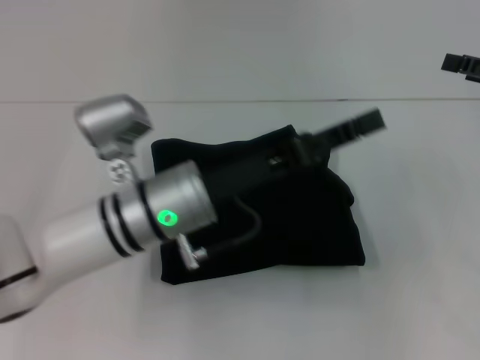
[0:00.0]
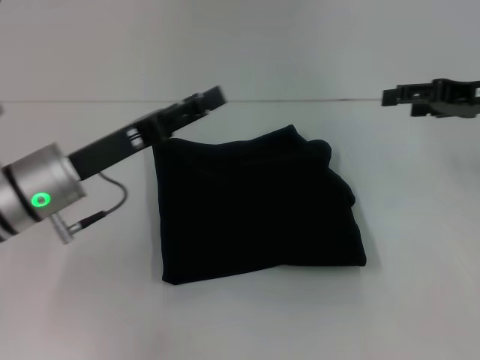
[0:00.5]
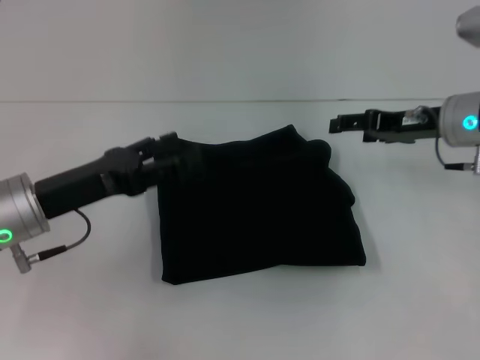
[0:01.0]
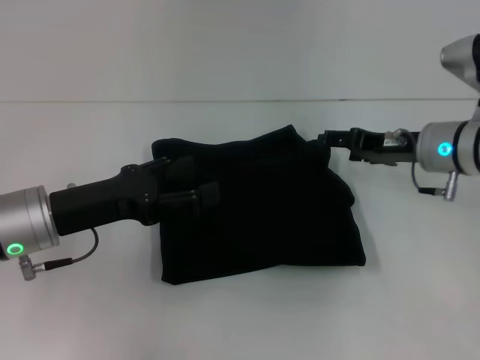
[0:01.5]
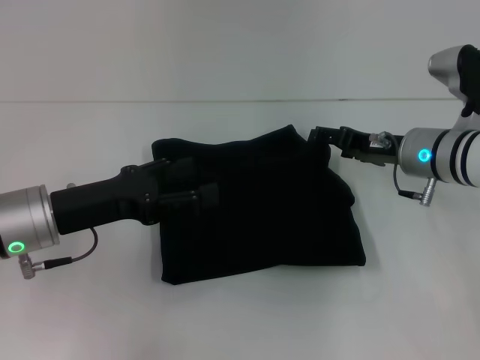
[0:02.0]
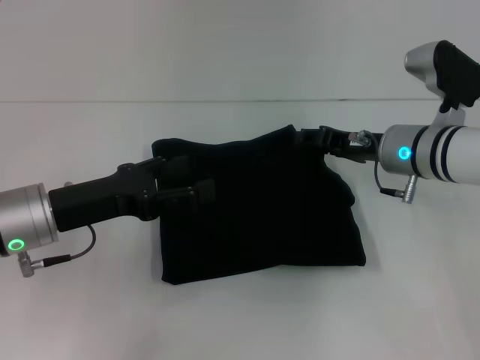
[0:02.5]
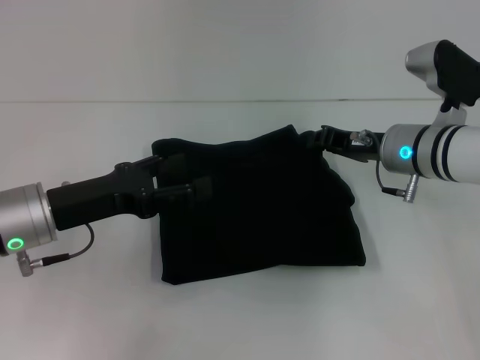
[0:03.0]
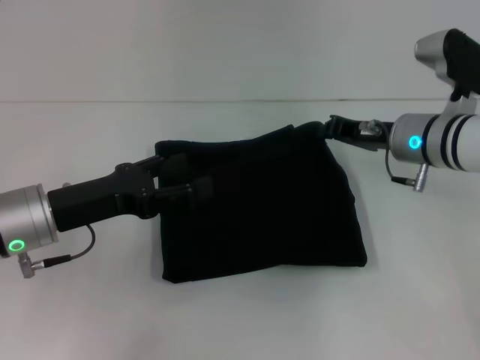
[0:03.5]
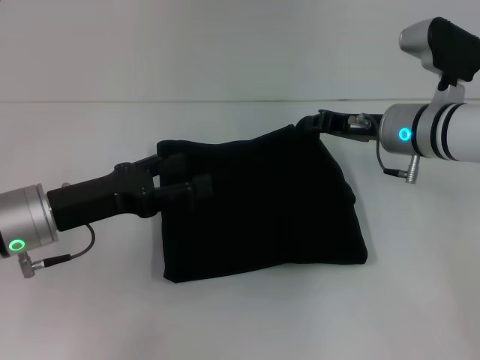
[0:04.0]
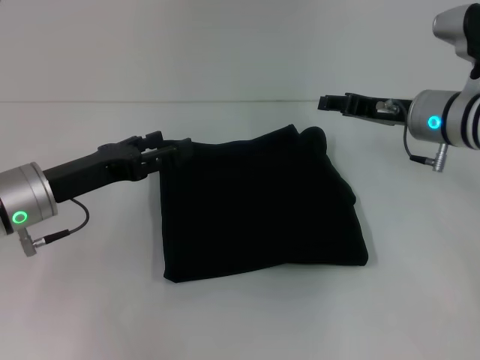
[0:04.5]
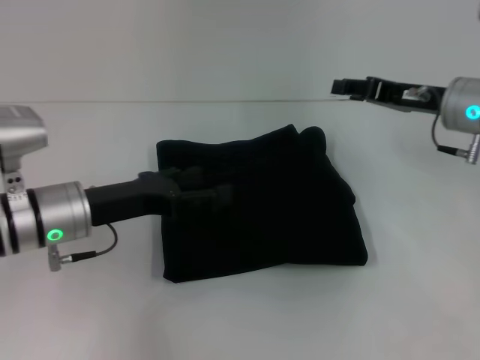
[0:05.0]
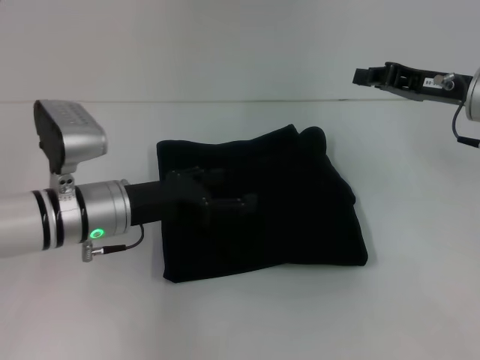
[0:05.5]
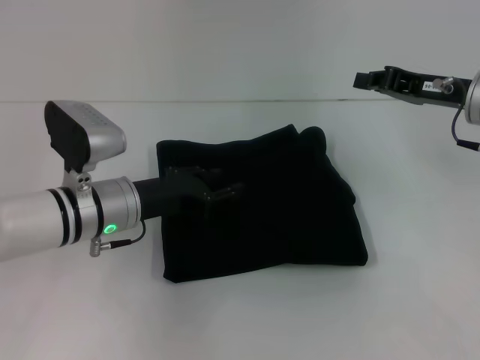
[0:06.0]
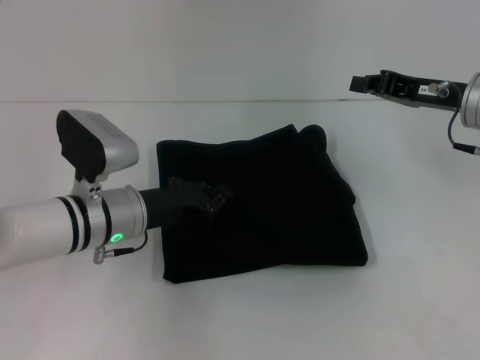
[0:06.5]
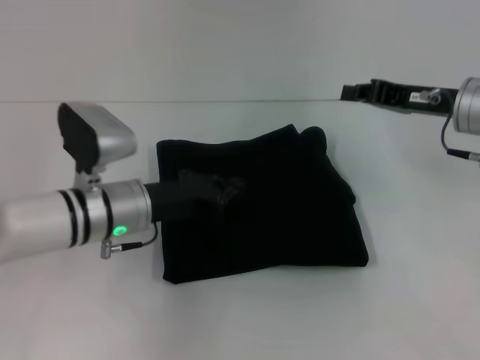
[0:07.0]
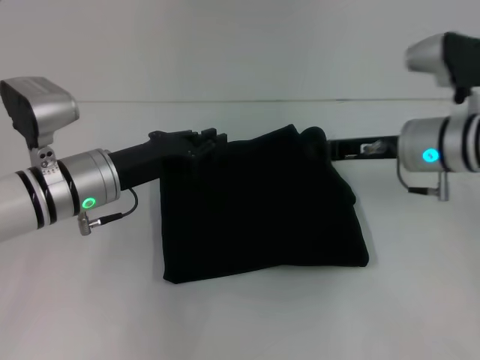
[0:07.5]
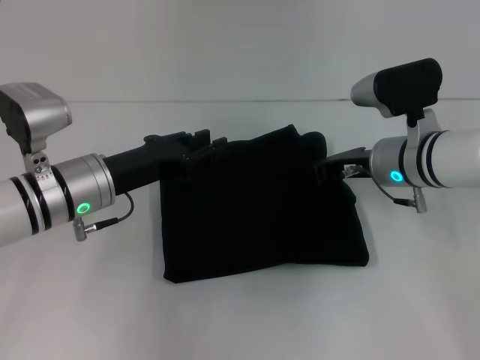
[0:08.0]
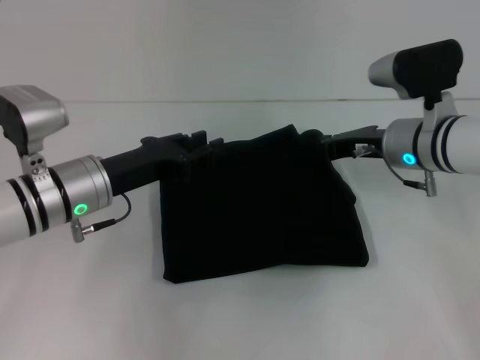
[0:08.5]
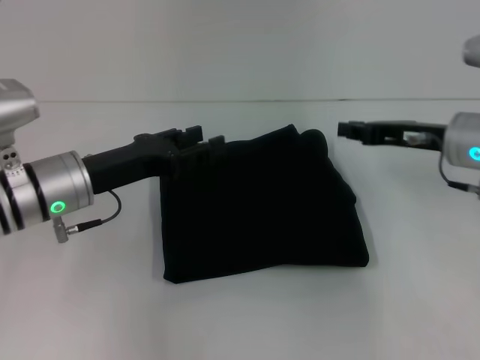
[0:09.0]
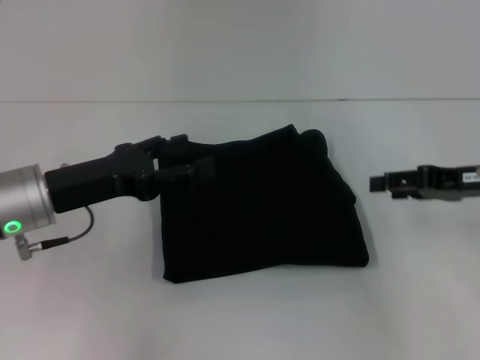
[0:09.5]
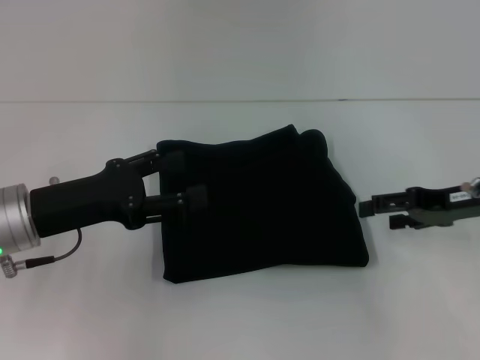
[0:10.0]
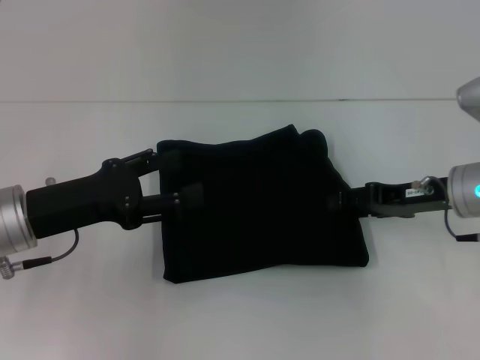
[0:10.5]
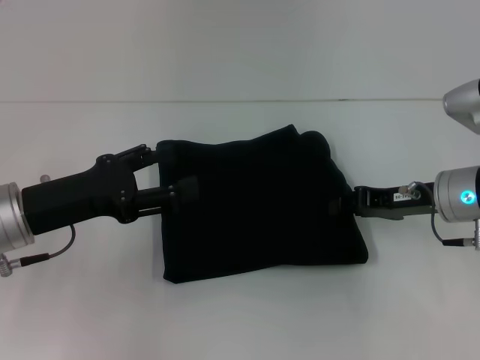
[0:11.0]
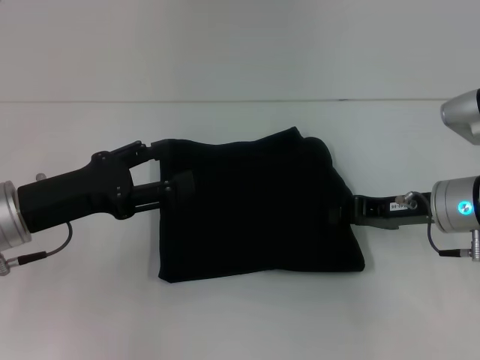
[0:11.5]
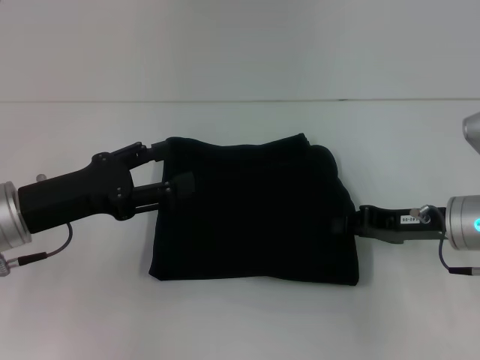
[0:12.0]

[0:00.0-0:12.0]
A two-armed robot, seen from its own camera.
0:00.0 to 0:02.0: The right gripper travels to the left and downward by approximately 20 cm; the left gripper heads to the left, covering about 15 cm, and opens.
0:02.0 to 0:04.0: The right gripper closes.
0:04.0 to 0:06.0: Both grippers travel together to the right, roughly 5 cm. The right gripper opens, then closes once more.
0:06.0 to 0:08.0: The left gripper closes its fingers; the right gripper travels to the left and downward by about 10 cm.
0:08.0 to 0:10.0: The right gripper moves to the right, approximately 10 cm, and opens its fingers, while the left gripper goes some 5 cm backward and to the left, and opens up.
0:10.0 to 0:12.0: The right gripper ends up approximately 5 cm from where it was, and closes its fingers.

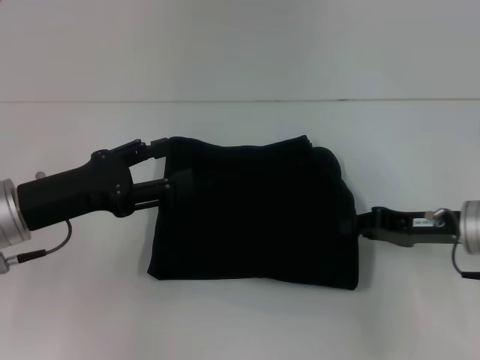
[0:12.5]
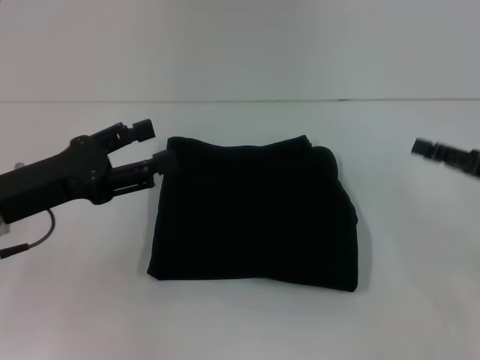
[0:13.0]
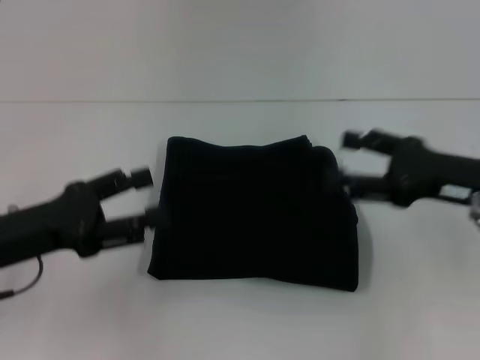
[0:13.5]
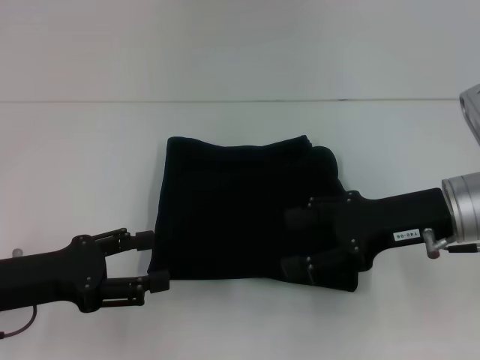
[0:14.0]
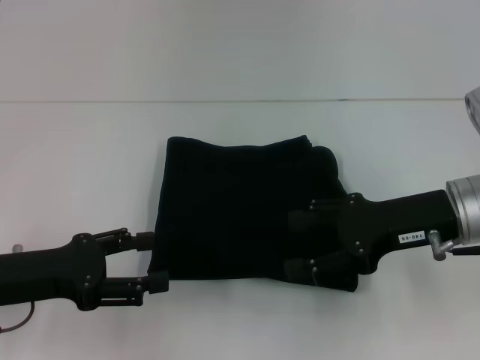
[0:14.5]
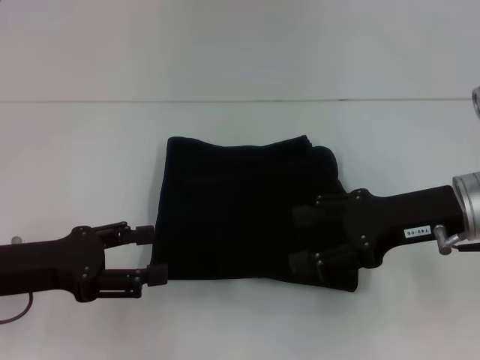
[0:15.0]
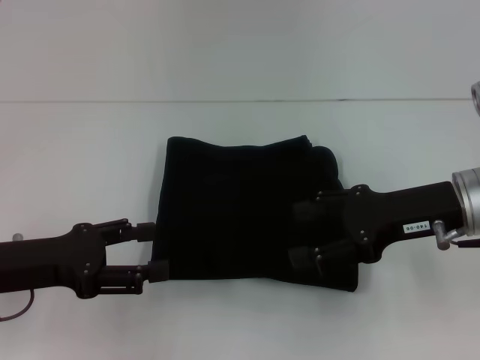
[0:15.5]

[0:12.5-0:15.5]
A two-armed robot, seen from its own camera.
0:12.5 to 0:14.0: The right gripper travels upward by approximately 5 cm, and opens up. The left gripper moves approximately 5 cm.
0:14.0 to 0:15.5: The grippers stay close to where they were, moving slightly.

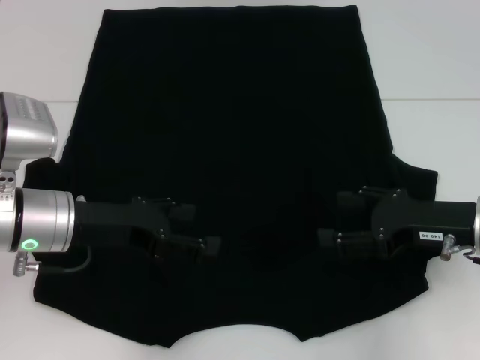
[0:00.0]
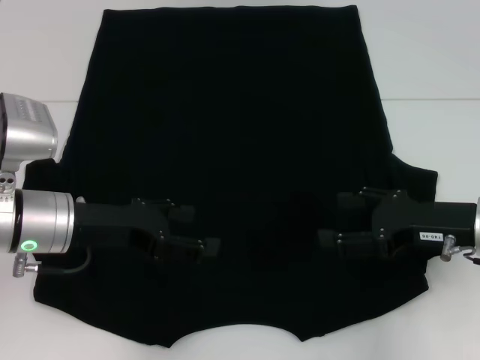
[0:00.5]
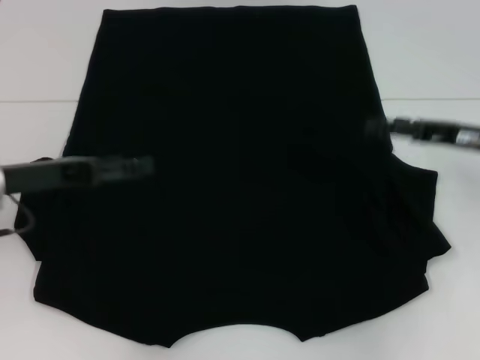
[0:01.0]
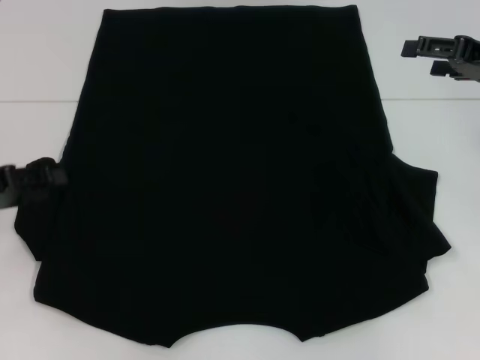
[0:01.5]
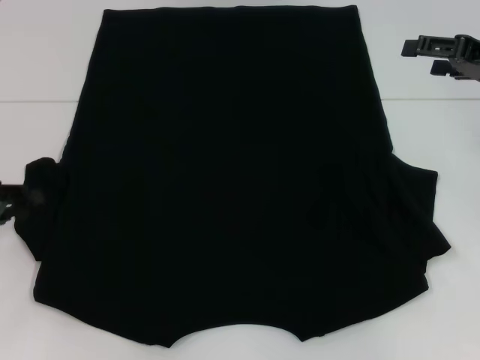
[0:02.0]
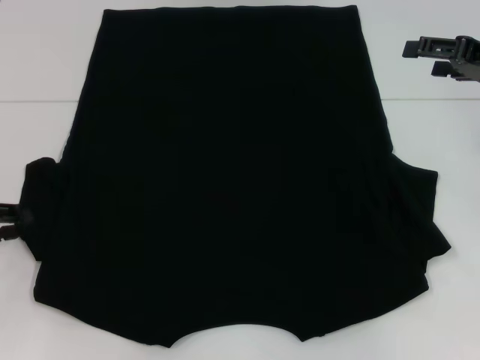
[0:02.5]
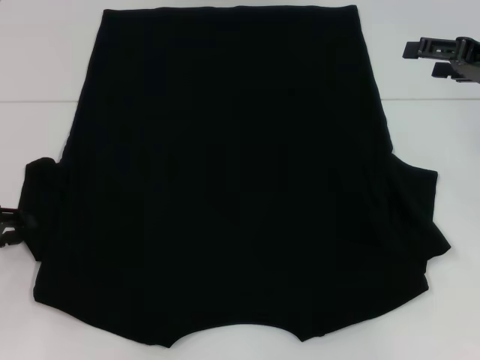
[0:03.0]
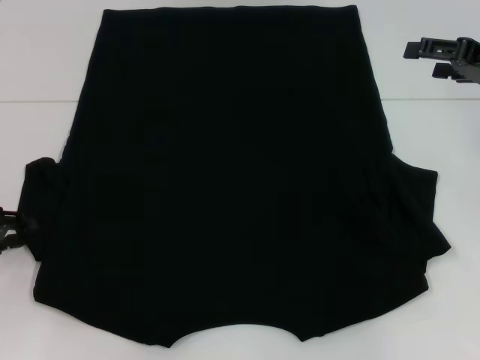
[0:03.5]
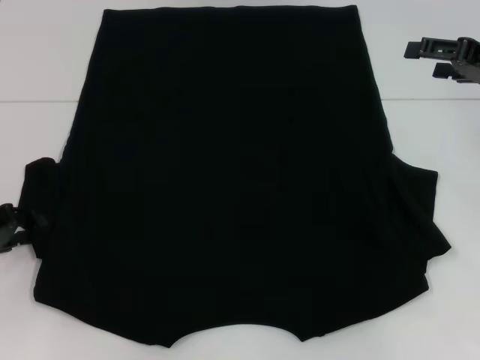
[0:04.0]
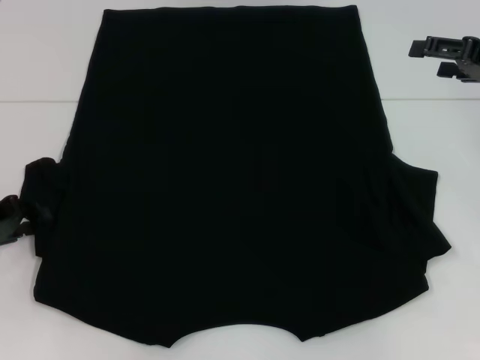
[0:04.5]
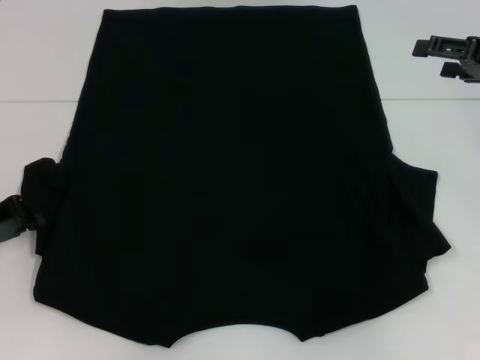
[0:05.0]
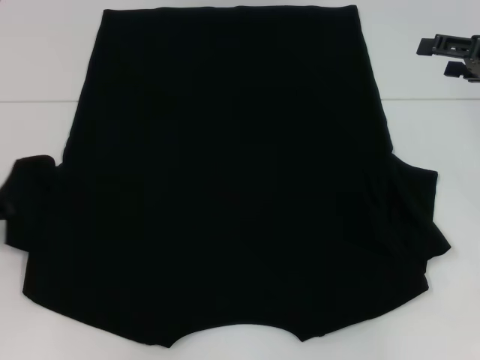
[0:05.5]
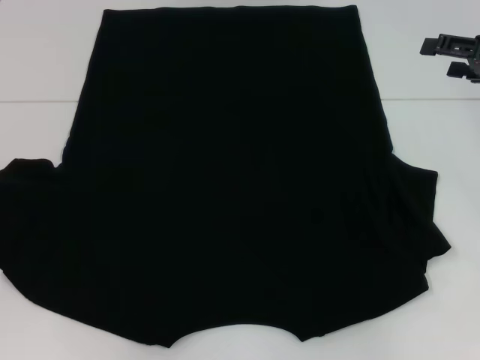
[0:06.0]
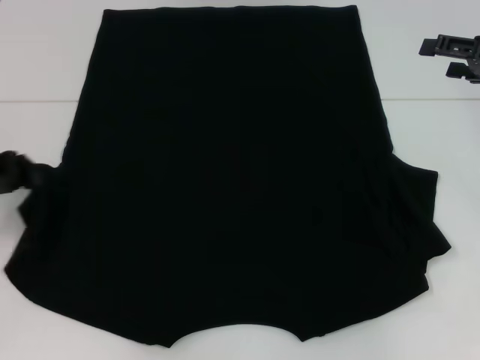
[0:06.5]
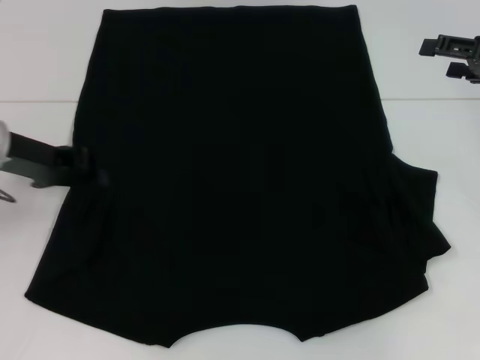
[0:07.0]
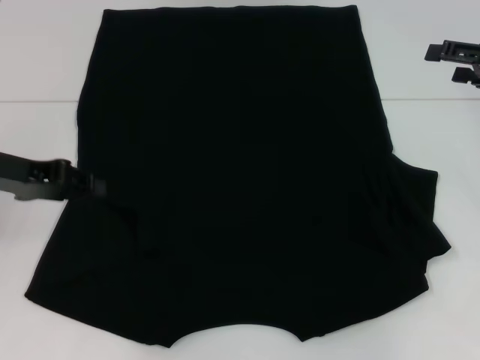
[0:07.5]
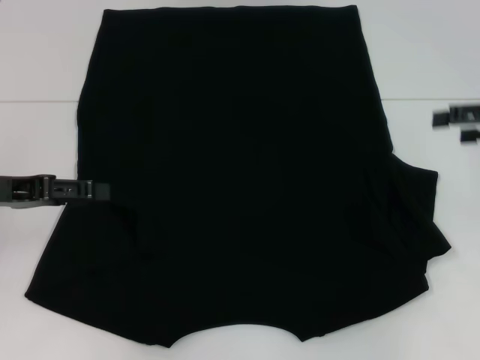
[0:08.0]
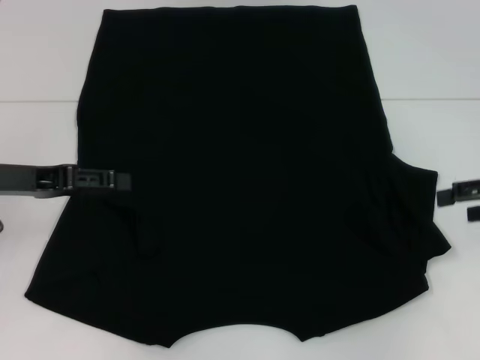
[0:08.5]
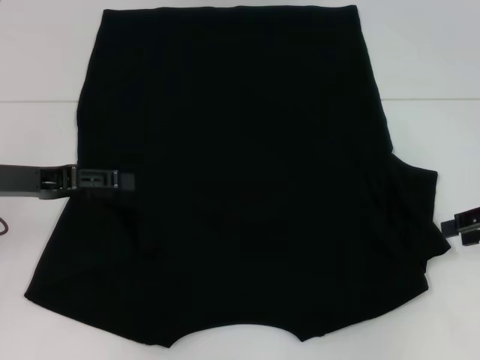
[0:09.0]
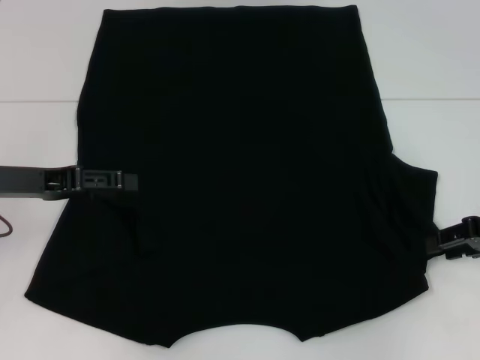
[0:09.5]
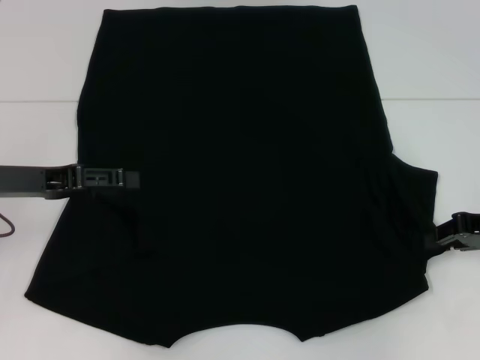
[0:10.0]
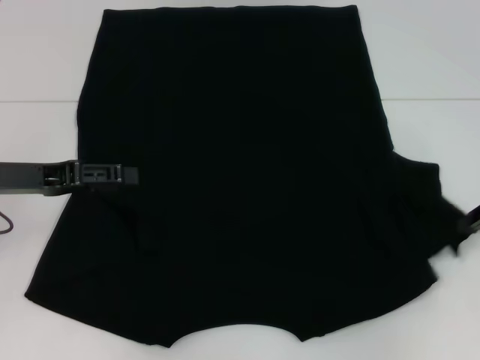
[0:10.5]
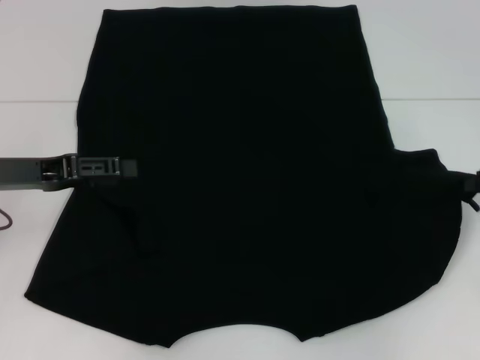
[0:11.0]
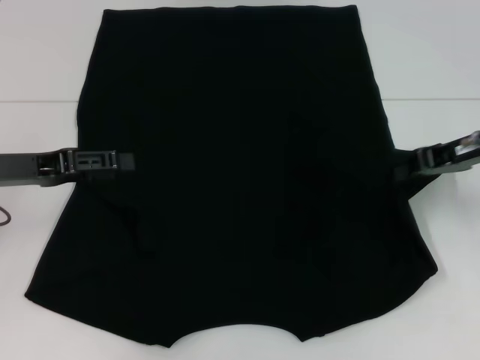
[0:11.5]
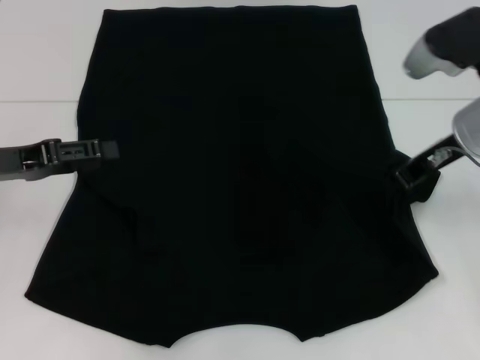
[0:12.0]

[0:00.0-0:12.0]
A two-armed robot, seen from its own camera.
Step, 0:00.0 to 0:07.5: Fold the bottom left sleeve with your left hand.
0:00.0 to 0:02.0: The right gripper shifts some 15 cm forward, upward and to the right. Meanwhile the left gripper moves to the left, some 15 cm, and closes.
0:02.0 to 0:04.0: There are only small adjustments of the grippers.
0:04.0 to 0:06.0: The left gripper shifts by roughly 5 cm, and closes up.
0:06.0 to 0:08.0: The left gripper is displaced to the right by some 10 cm, and opens its fingers.
0:08.0 to 0:10.0: The right gripper moves downward, some 10 cm, and closes up.
0:10.0 to 0:12.0: The right gripper shifts some 15 cm to the left, upward and forward.
